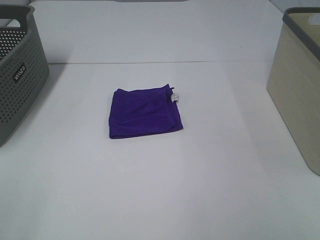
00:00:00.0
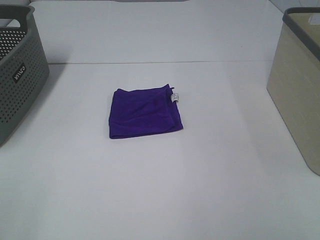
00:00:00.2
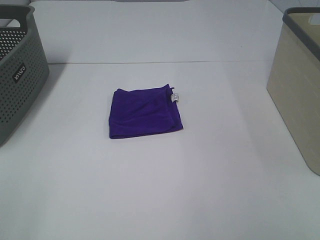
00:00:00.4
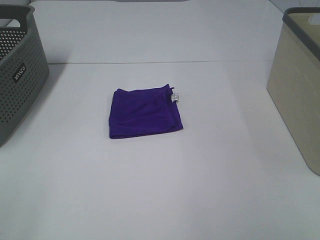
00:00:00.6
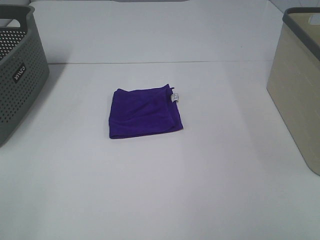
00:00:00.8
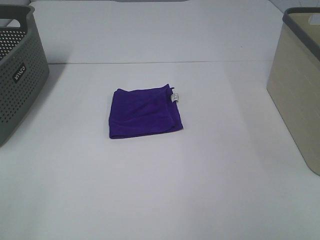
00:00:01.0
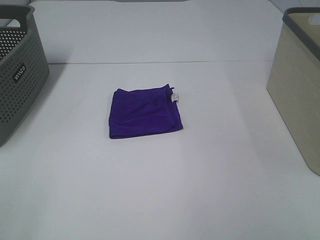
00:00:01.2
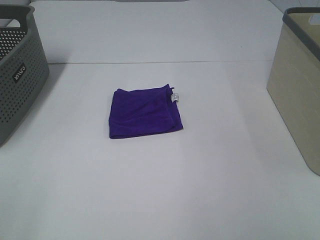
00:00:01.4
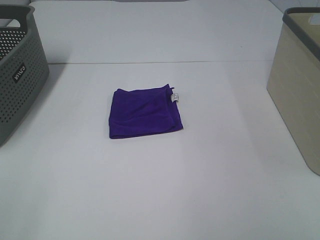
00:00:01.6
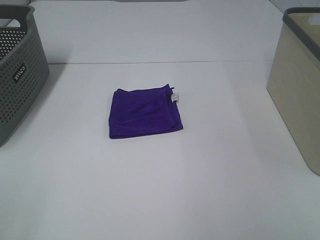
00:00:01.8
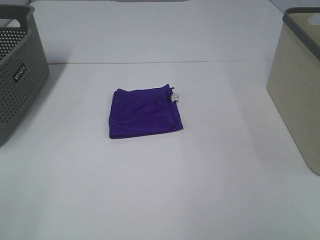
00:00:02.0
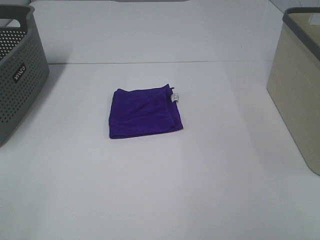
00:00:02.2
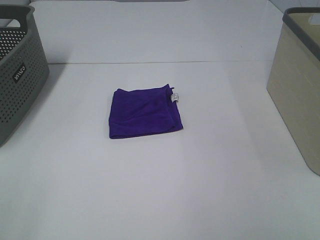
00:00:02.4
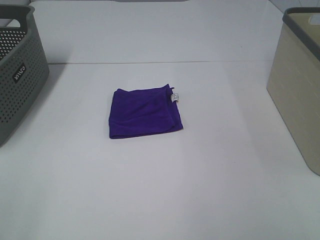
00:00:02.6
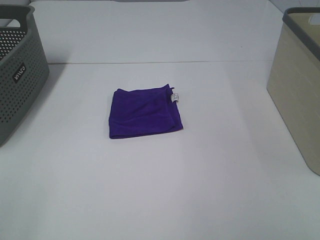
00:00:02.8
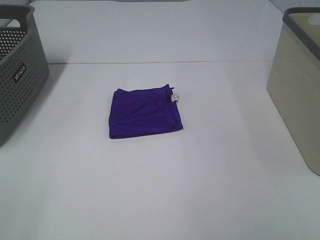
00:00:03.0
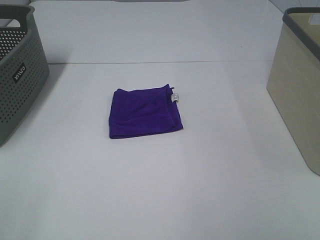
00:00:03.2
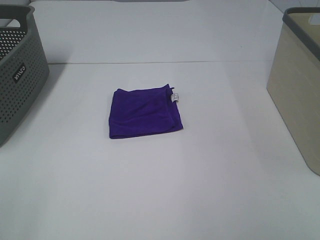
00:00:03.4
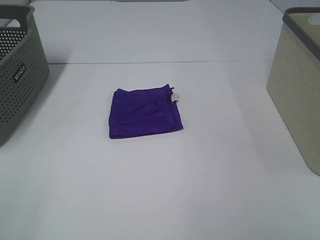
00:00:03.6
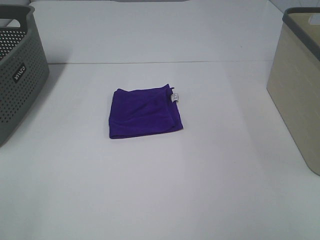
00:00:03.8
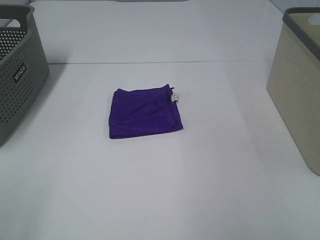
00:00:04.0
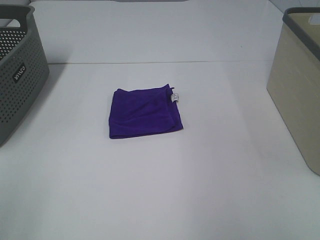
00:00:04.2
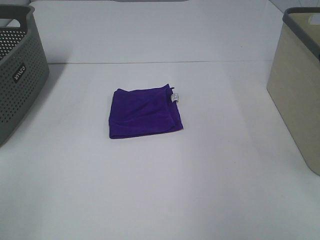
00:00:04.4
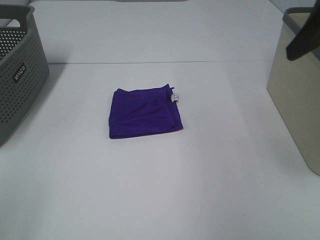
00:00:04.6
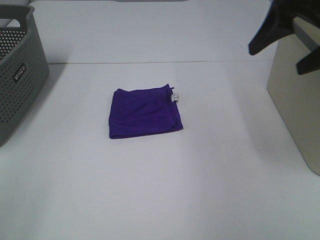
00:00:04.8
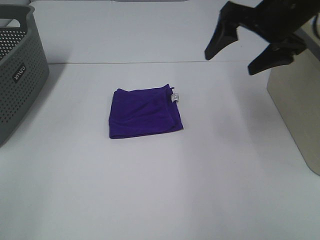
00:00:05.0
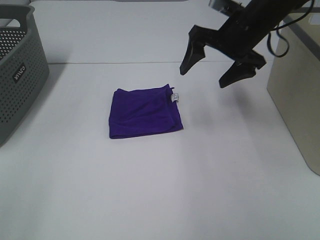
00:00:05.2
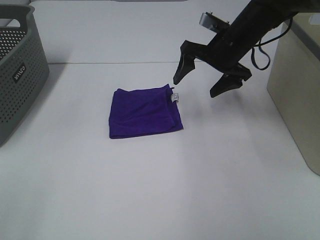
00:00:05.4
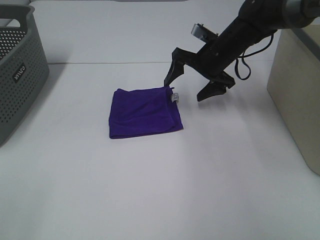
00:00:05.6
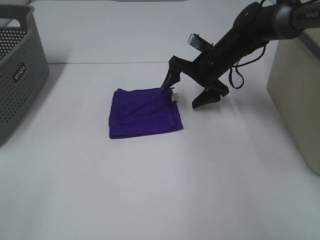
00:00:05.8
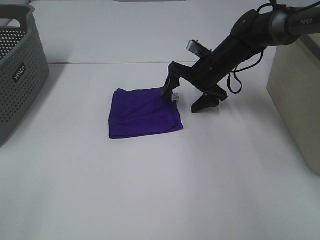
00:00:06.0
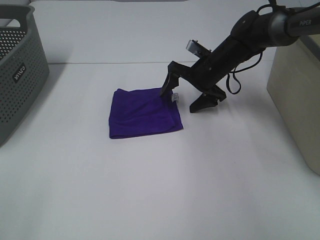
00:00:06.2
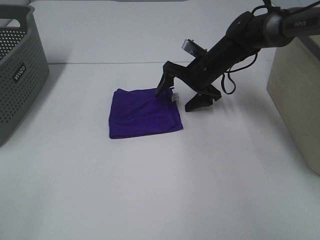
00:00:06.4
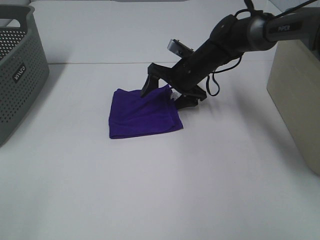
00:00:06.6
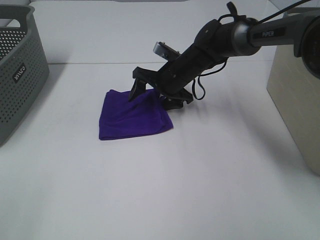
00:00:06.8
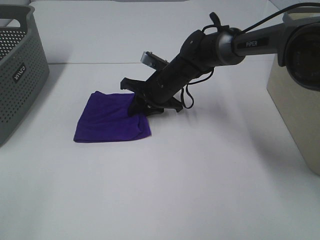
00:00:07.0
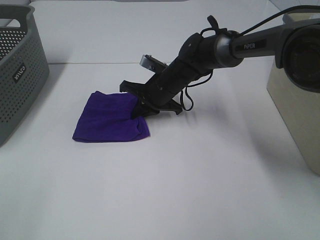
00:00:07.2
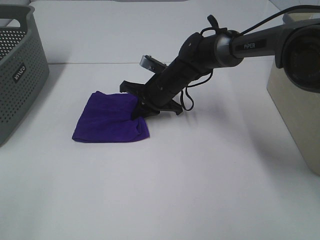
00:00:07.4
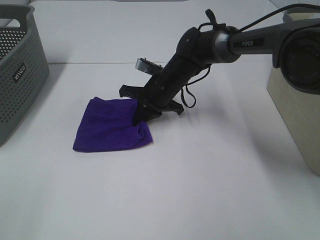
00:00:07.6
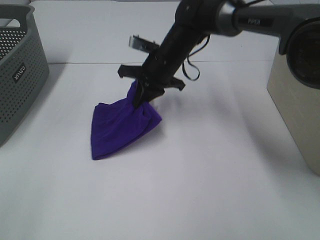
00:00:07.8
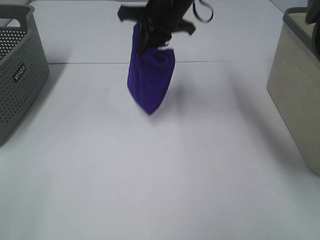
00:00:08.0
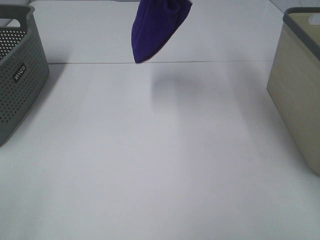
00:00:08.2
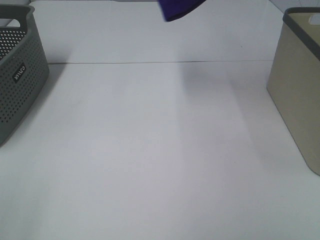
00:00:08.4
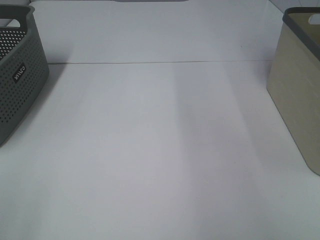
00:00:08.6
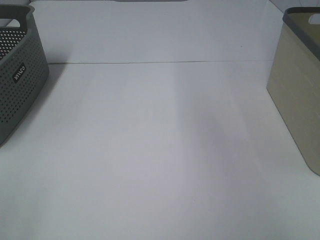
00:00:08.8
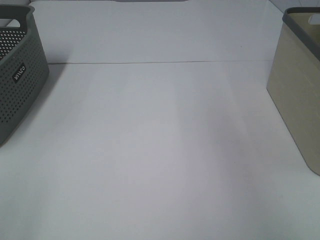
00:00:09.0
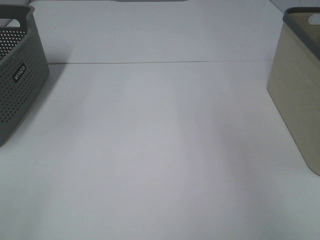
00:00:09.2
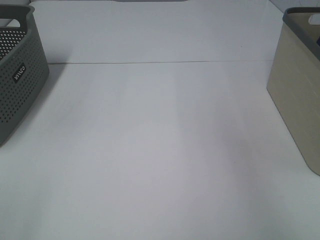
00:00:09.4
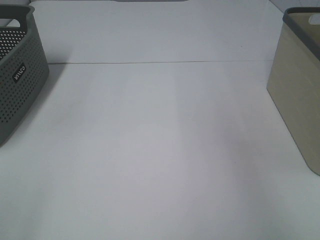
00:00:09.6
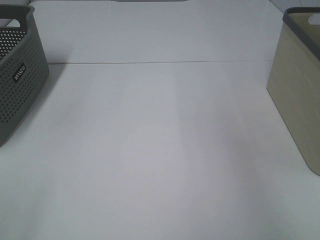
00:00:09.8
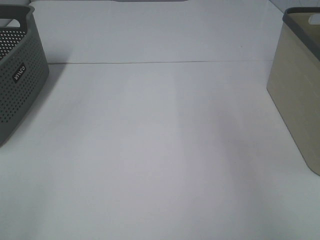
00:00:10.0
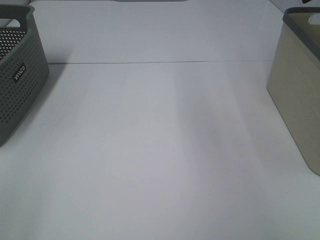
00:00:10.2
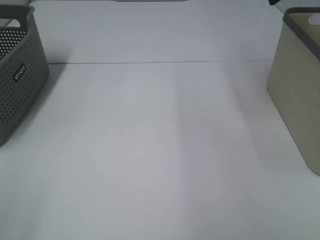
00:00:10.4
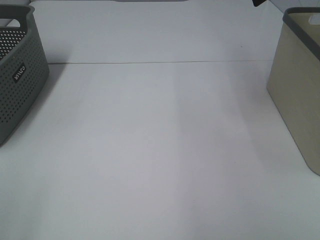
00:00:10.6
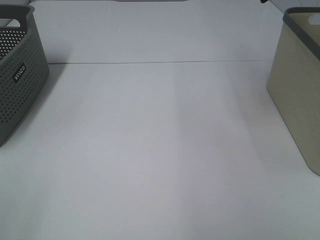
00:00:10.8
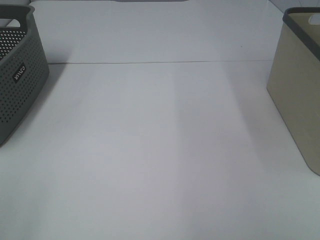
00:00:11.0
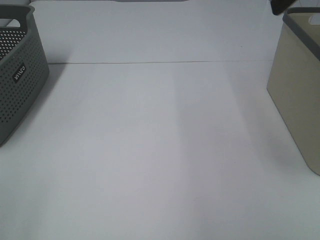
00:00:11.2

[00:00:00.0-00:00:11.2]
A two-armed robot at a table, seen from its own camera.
Step, 00:00:00.0 to 00:00:07.0: Right hand: grab the folded purple towel.
Step, 00:00:07.2 to 00:00:09.6: Right hand: place the purple towel in right basket.
00:00:00.0 to 00:00:03.2: Both grippers stay about where they are.
00:00:03.2 to 00:00:04.8: The right gripper moves forward, approximately 30 cm.
00:00:04.8 to 00:00:06.4: The right gripper is displaced downward, forward and to the left by some 30 cm.
00:00:06.4 to 00:00:08.0: The right gripper is displaced upward and to the left by about 20 cm, and closes.
00:00:08.0 to 00:00:09.6: The right gripper goes approximately 35 cm to the right, and opens its fingers.

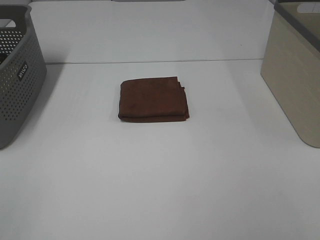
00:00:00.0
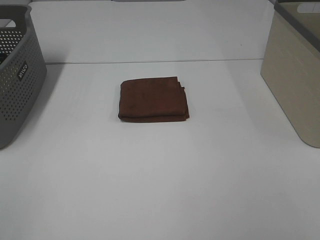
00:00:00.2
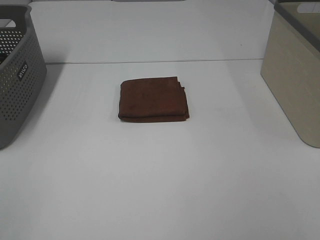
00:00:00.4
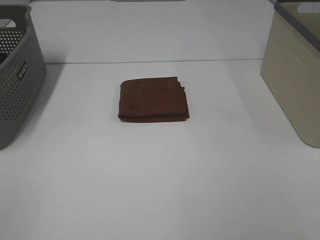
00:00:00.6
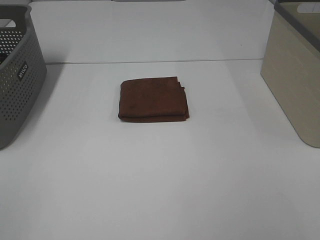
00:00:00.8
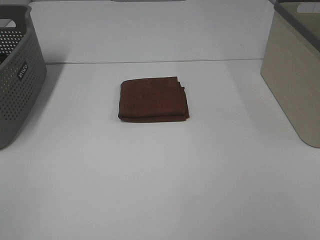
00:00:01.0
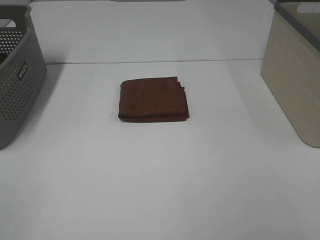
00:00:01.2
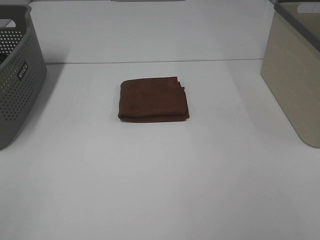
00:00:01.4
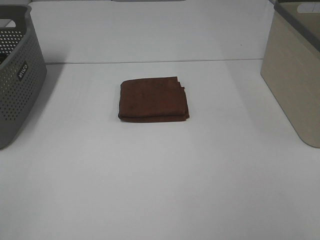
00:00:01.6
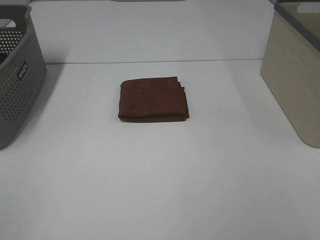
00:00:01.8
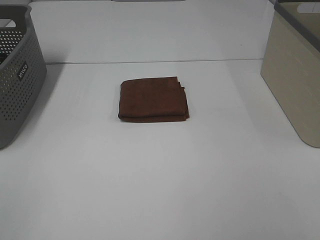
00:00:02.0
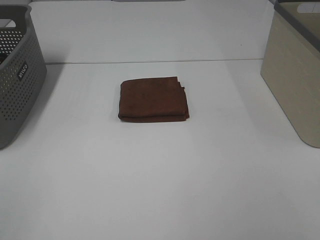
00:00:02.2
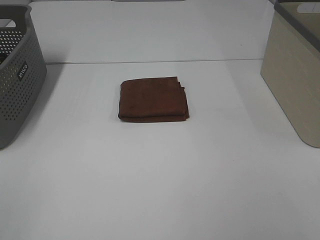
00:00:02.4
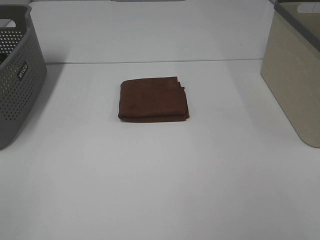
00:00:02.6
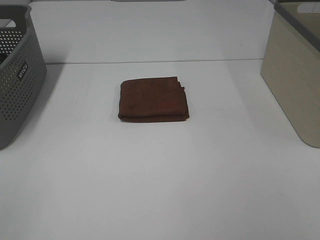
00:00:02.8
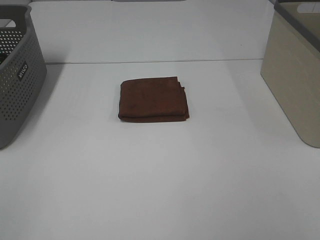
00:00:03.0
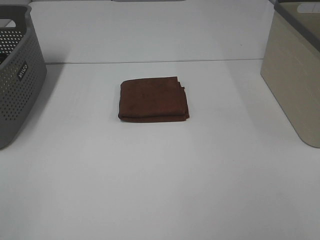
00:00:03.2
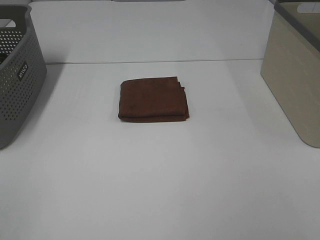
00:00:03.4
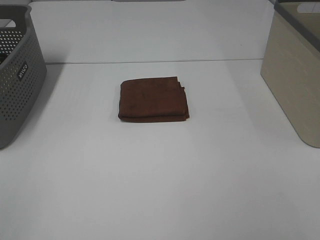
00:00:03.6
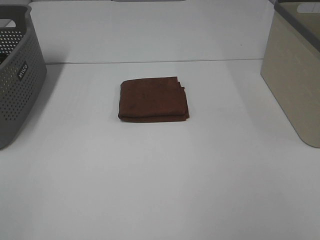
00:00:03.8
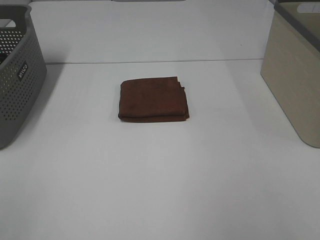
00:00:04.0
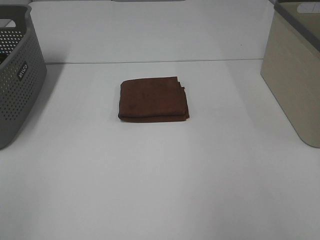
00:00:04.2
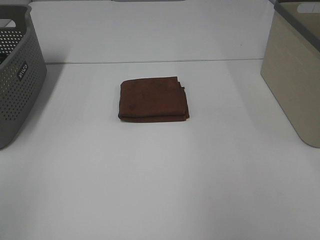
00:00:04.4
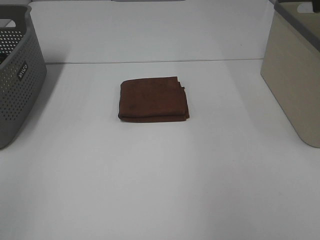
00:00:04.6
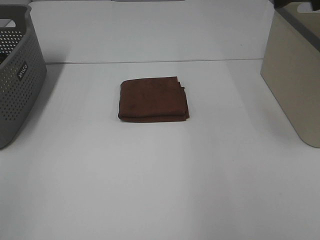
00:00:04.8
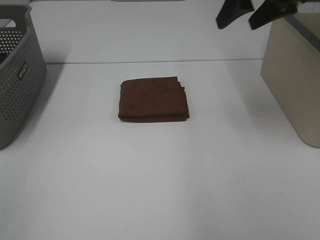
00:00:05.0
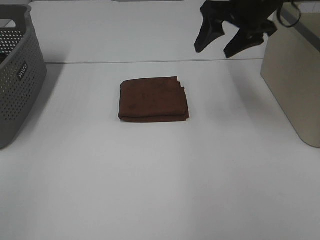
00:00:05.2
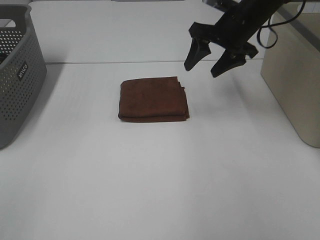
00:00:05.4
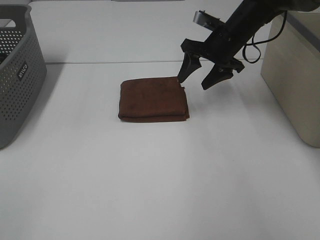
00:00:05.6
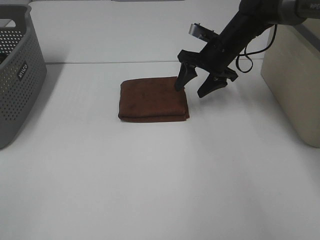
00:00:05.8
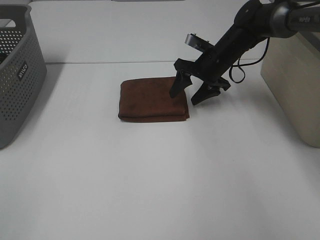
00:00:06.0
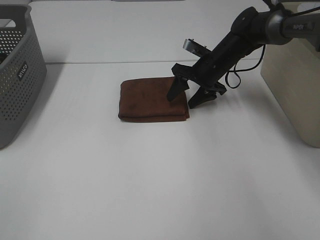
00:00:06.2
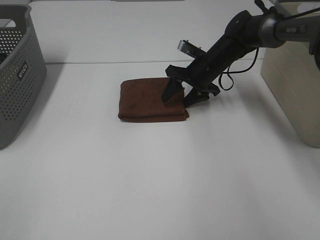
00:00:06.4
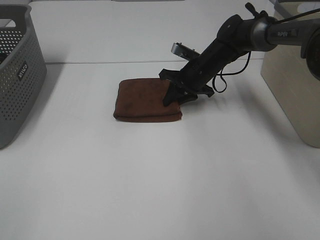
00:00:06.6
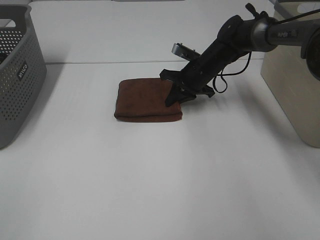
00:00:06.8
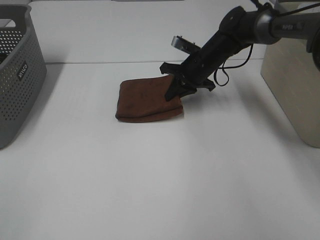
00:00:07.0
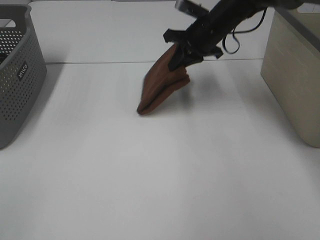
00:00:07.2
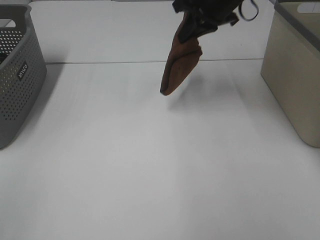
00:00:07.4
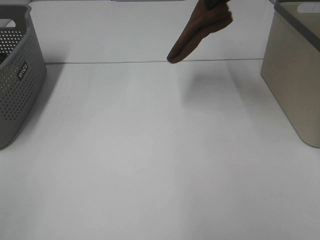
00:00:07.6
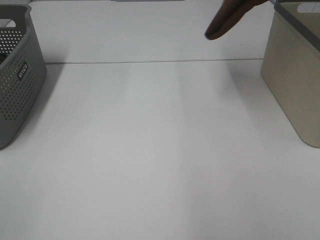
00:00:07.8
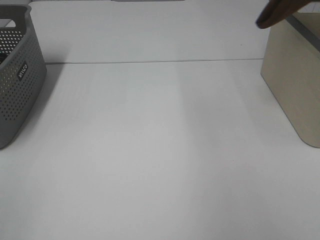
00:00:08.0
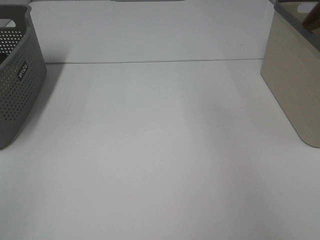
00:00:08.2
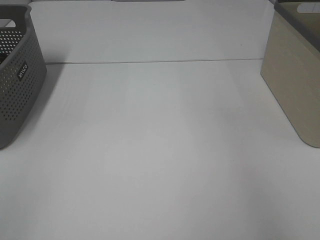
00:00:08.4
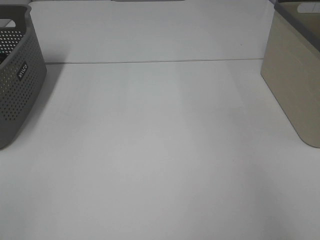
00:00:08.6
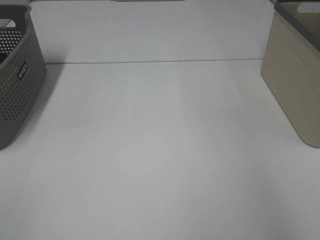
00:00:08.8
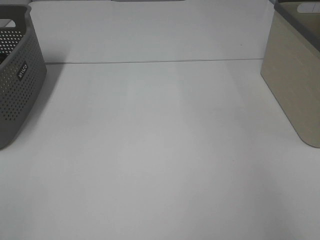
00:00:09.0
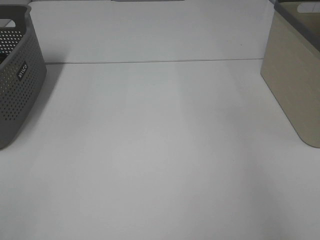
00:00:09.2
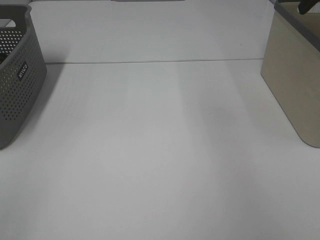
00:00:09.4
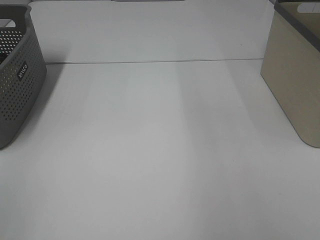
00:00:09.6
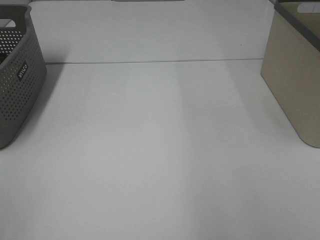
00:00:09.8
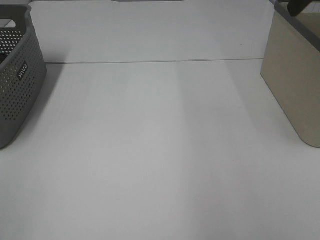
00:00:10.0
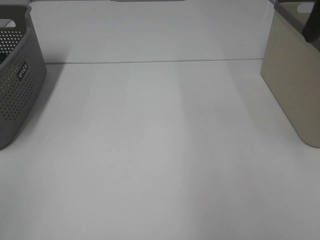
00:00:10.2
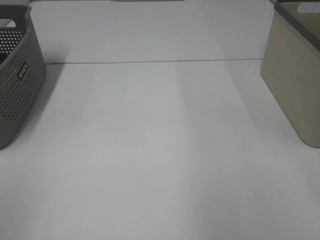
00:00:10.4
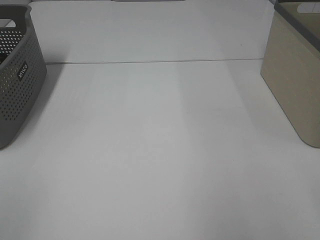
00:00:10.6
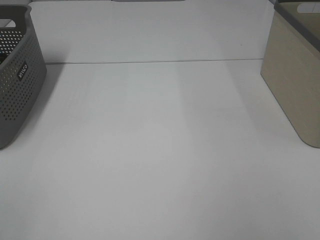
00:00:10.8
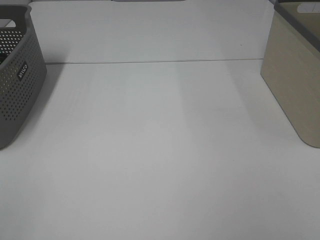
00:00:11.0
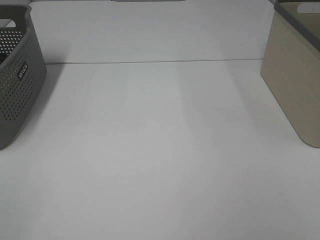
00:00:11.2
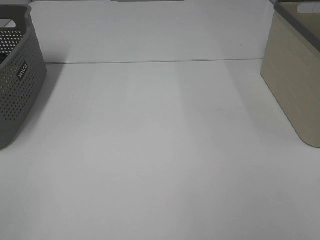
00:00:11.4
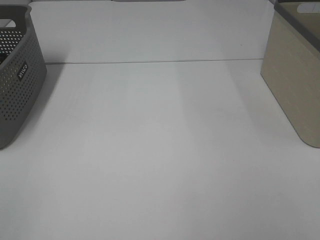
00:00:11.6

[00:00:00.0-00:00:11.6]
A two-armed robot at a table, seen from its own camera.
Step, 00:00:00.0 to 00:00:06.8: Right hand: grab the folded brown towel.
Step, 00:00:07.0 to 00:00:09.2: Right hand: place the brown towel in right basket.
00:00:00.0 to 00:00:02.8: Both grippers stay about where they are.
00:00:04.4 to 00:00:05.8: The right gripper goes approximately 40 cm forward, downward and to the left.
00:00:05.8 to 00:00:07.2: The right gripper moves upward, roughly 5 cm, and closes up.
00:00:07.2 to 00:00:08.8: The right gripper is displaced to the right and upward by approximately 30 cm.
